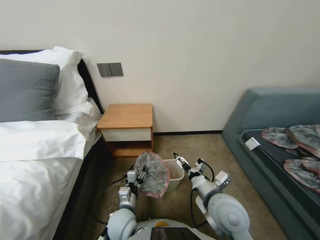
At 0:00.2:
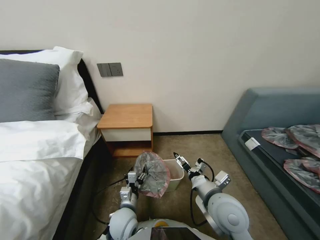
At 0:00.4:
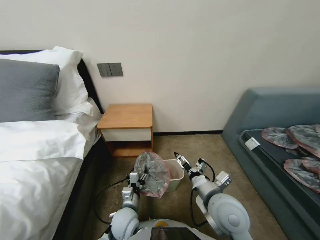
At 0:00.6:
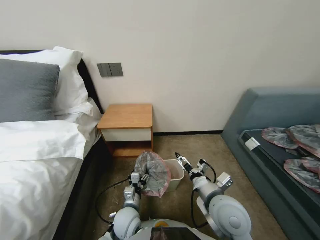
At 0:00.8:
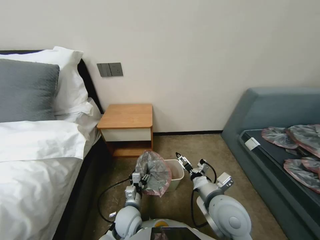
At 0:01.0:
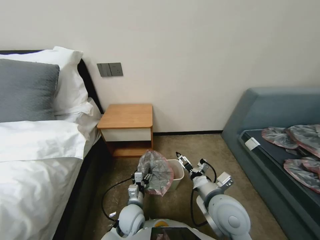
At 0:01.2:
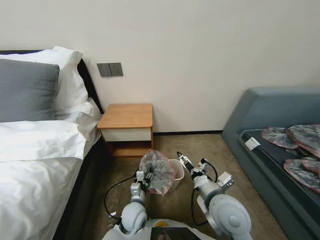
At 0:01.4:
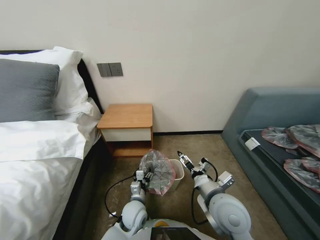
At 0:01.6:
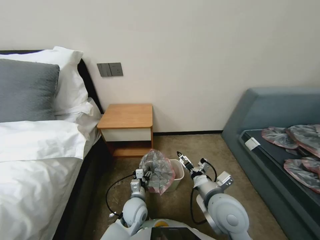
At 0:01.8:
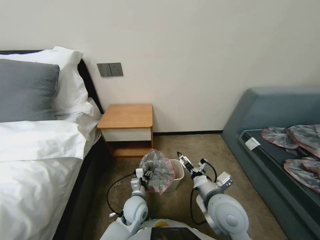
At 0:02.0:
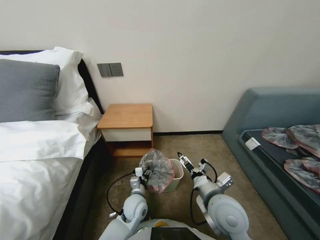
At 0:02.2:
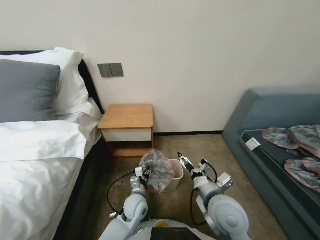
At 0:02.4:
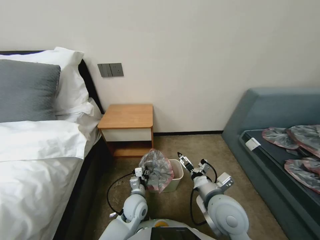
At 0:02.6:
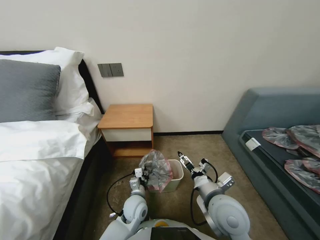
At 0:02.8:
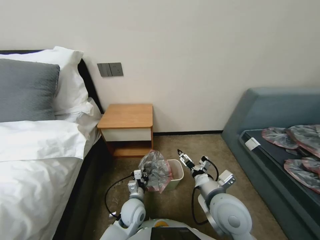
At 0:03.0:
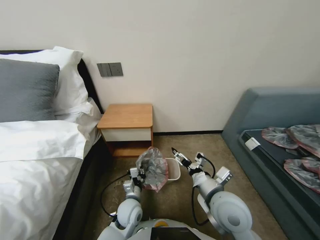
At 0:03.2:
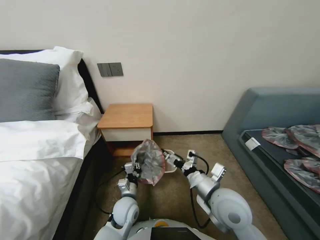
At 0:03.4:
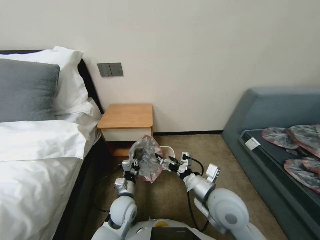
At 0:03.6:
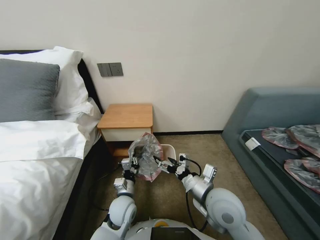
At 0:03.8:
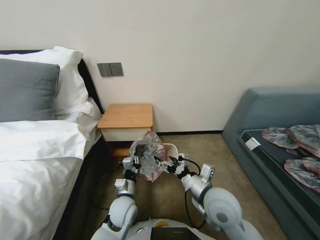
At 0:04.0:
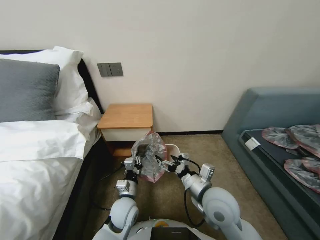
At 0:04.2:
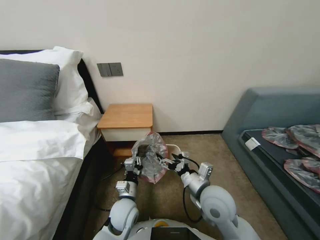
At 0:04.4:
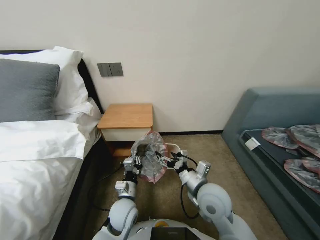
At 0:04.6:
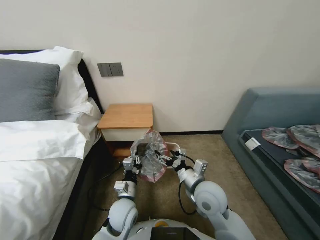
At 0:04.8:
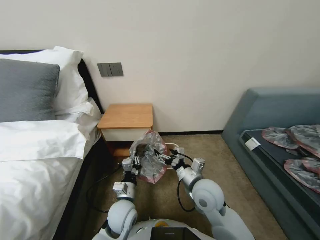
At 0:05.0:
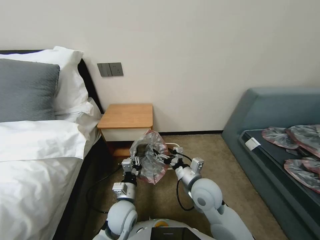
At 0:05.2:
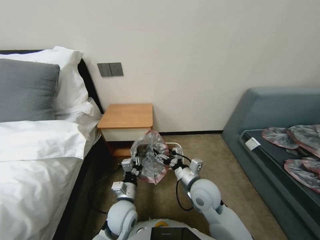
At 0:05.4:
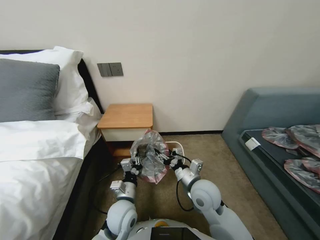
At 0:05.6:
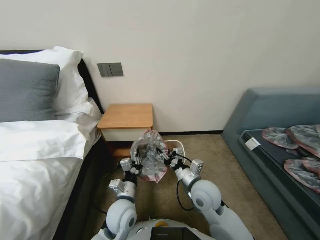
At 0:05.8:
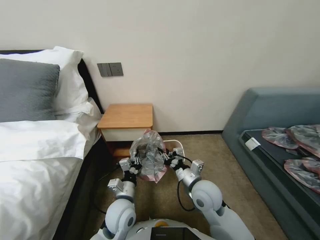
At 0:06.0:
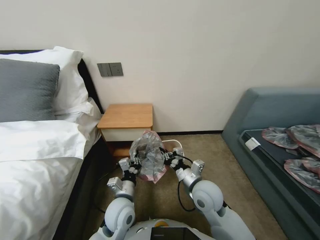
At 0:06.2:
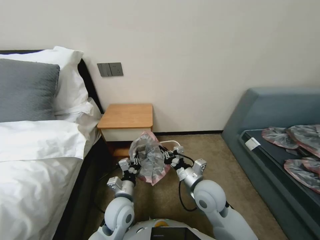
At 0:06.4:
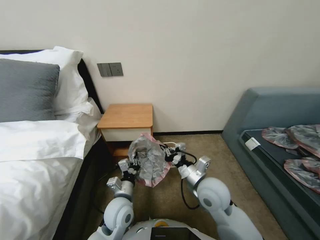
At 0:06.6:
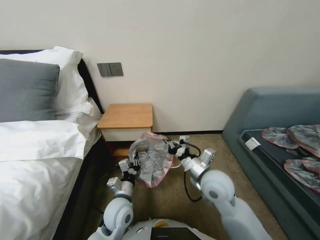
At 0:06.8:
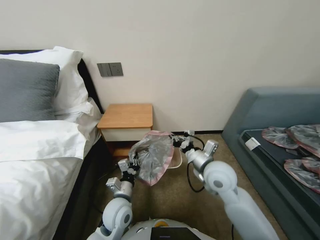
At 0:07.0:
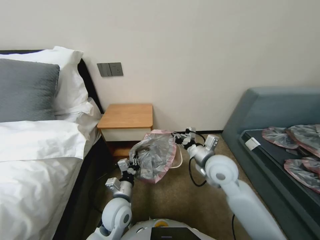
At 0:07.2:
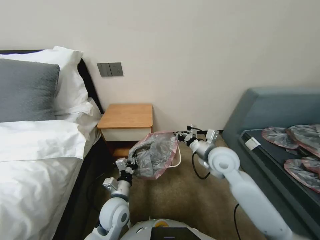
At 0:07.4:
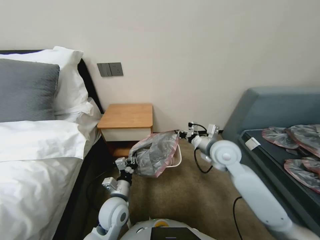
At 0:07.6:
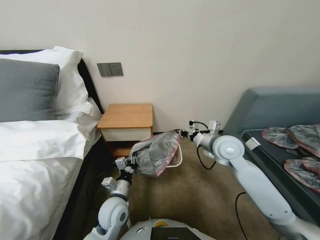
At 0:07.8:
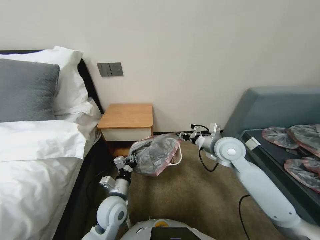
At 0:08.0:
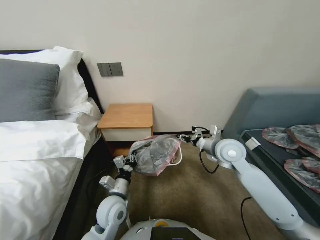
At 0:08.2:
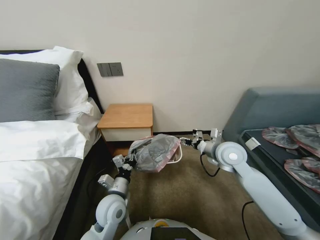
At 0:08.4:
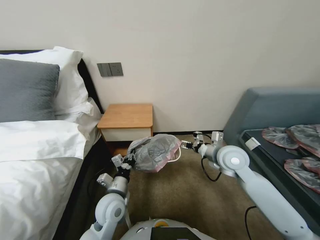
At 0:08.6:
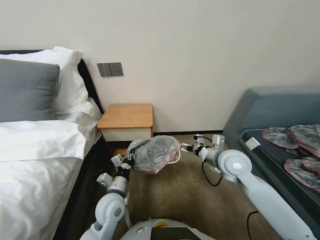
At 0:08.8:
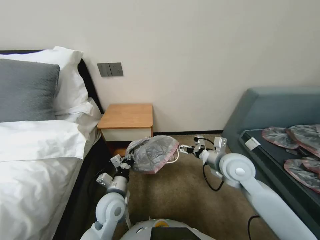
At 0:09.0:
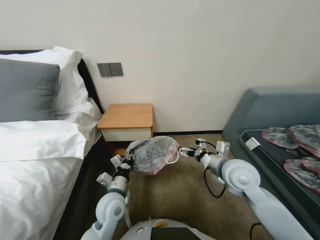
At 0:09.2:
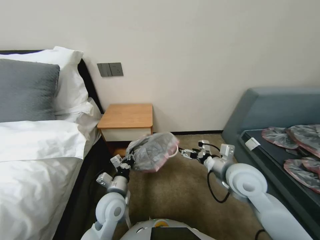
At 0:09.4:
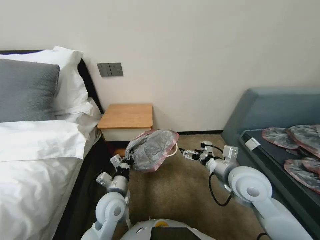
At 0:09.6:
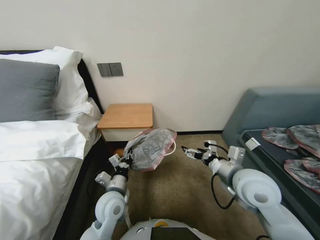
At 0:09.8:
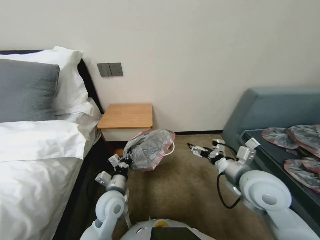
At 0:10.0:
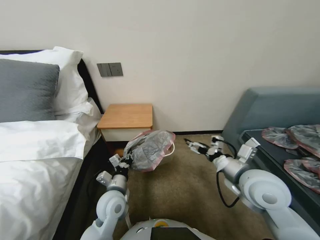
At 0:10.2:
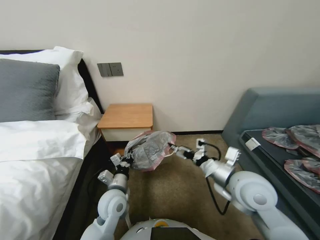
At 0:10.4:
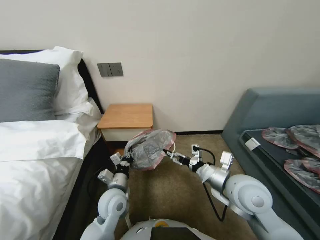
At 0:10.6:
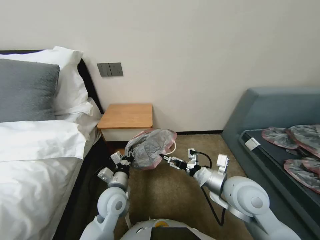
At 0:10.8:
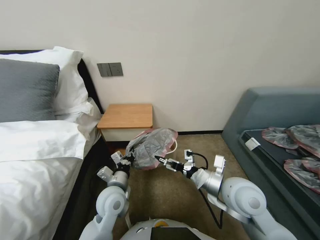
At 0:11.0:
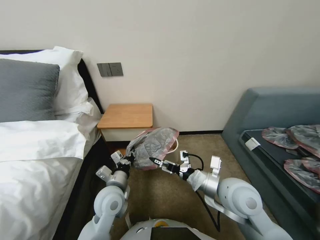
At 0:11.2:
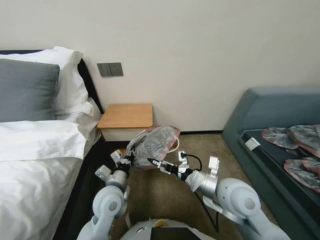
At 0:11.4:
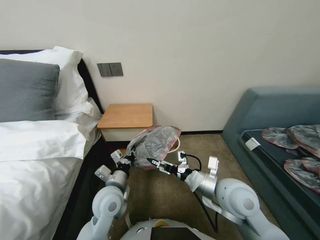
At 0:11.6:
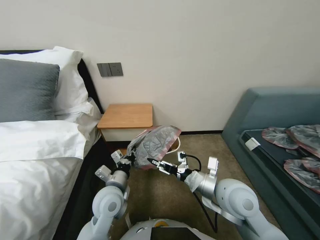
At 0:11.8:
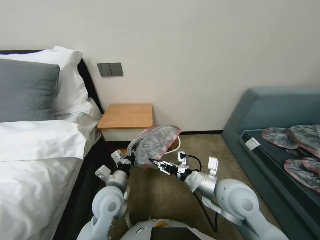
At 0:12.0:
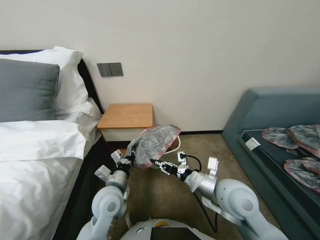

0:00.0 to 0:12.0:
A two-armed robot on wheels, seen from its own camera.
Task of the whole recording: Pick up the garbage bag from the table and place it over the trash can.
0:00.0 to 0:01.6: The left gripper changes place by approximately 5 cm.
0:01.6 to 0:03.0: The left gripper closes.
0:03.0 to 0:04.4: The left gripper goes roughly 5 cm upward.
0:04.4 to 0:06.0: The right gripper closes.
0:06.0 to 0:07.6: The right gripper heads forward, upward and to the right, covering approximately 20 cm.
0:07.6 to 0:09.0: The right gripper heads backward, covering roughly 5 cm, and opens.
0:09.0 to 0:10.4: The right gripper is displaced backward by some 5 cm.
0:10.4 to 0:12.0: The right gripper closes.

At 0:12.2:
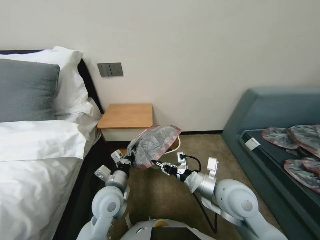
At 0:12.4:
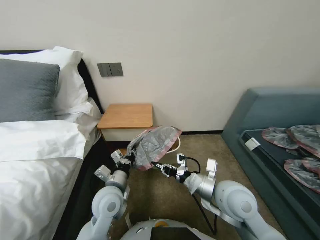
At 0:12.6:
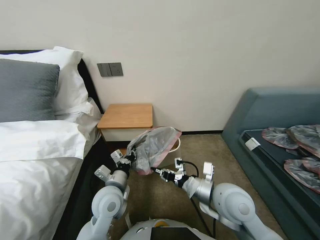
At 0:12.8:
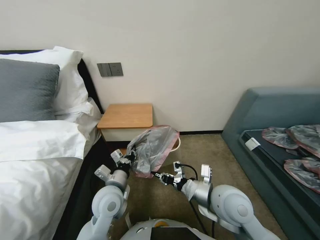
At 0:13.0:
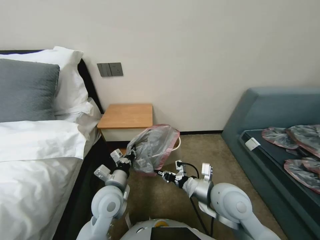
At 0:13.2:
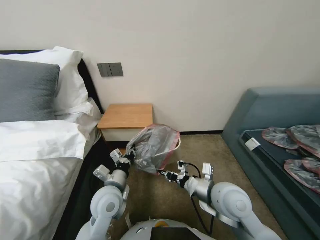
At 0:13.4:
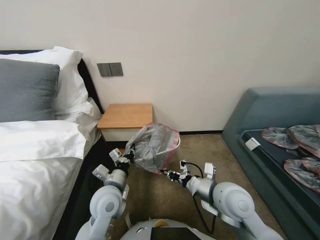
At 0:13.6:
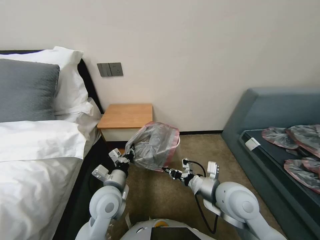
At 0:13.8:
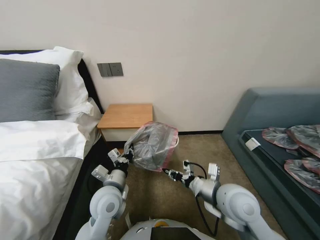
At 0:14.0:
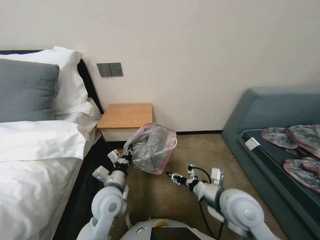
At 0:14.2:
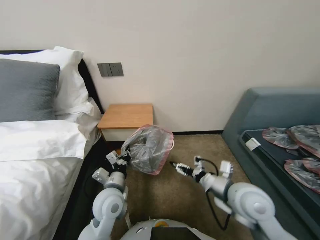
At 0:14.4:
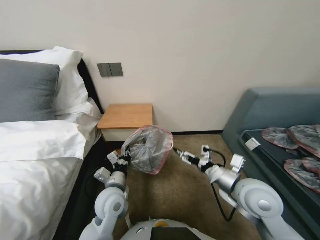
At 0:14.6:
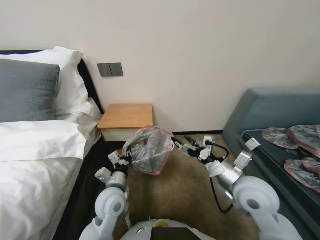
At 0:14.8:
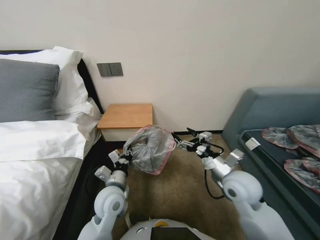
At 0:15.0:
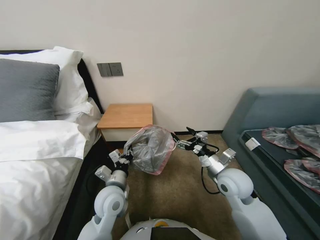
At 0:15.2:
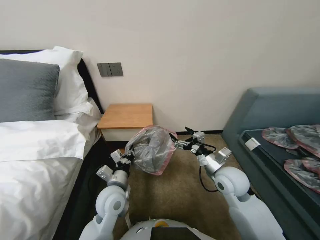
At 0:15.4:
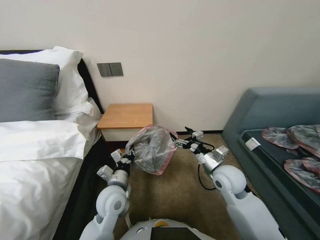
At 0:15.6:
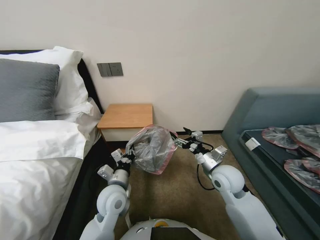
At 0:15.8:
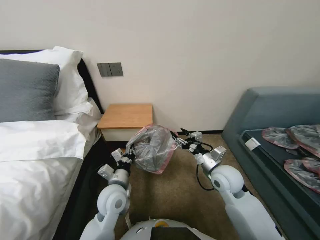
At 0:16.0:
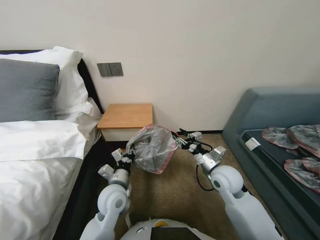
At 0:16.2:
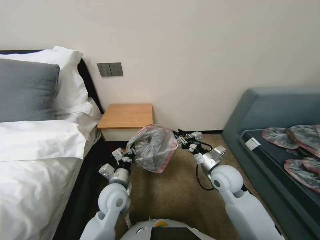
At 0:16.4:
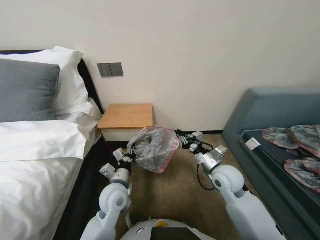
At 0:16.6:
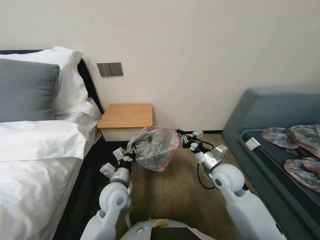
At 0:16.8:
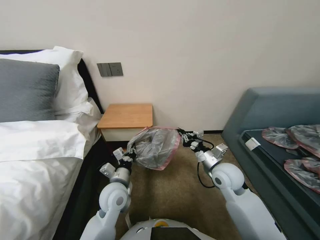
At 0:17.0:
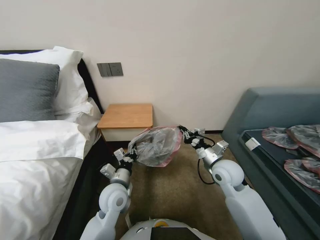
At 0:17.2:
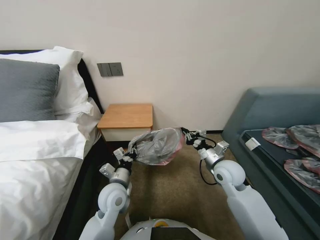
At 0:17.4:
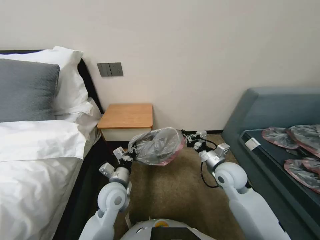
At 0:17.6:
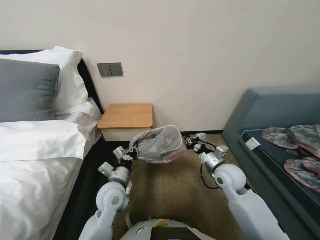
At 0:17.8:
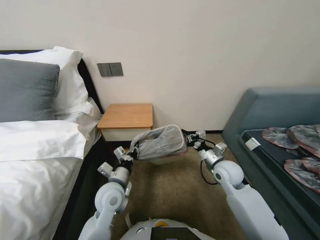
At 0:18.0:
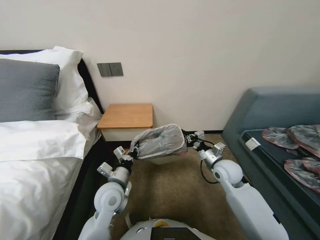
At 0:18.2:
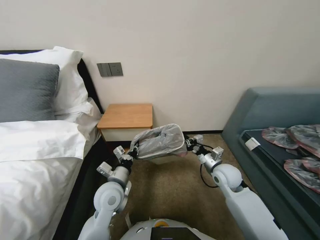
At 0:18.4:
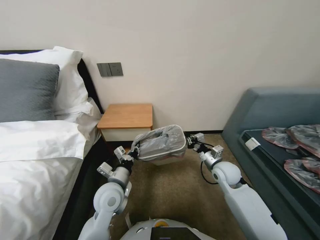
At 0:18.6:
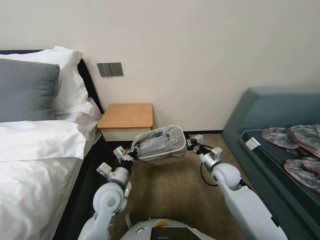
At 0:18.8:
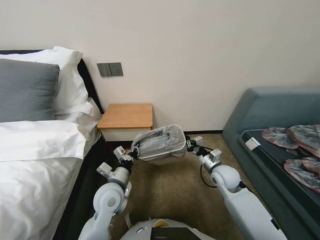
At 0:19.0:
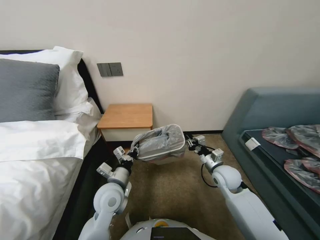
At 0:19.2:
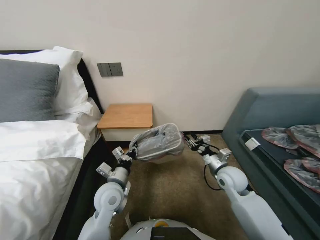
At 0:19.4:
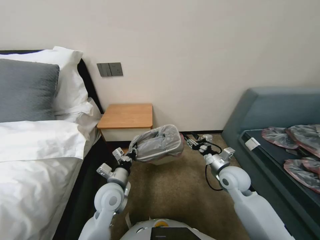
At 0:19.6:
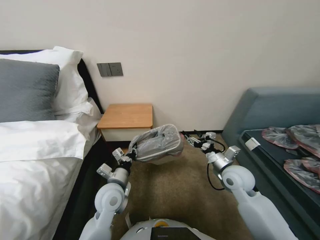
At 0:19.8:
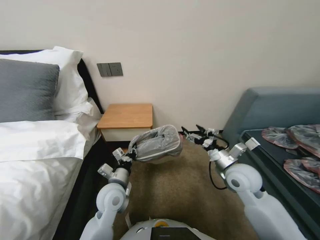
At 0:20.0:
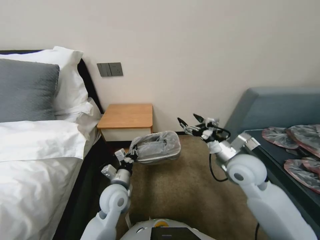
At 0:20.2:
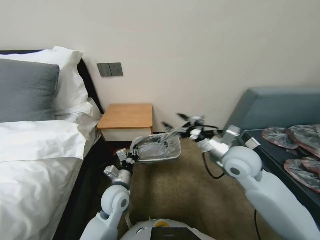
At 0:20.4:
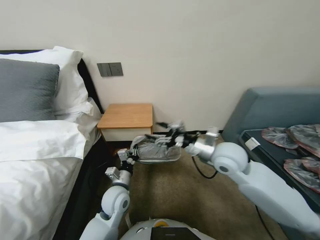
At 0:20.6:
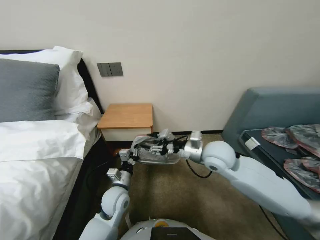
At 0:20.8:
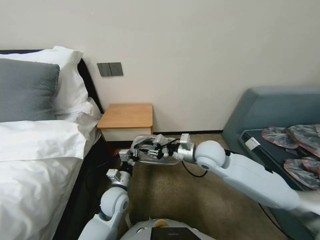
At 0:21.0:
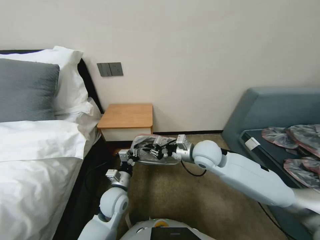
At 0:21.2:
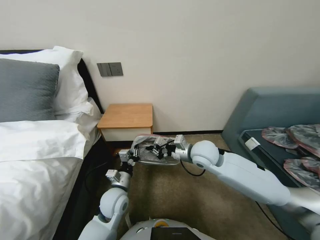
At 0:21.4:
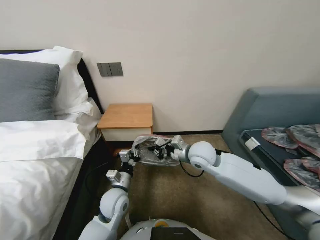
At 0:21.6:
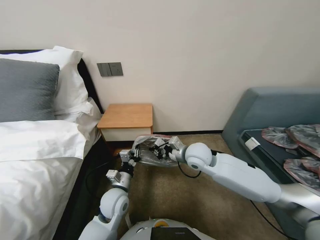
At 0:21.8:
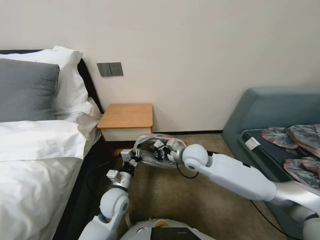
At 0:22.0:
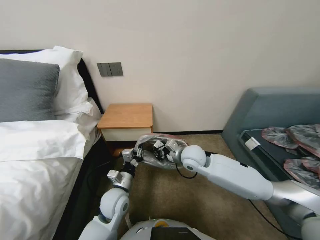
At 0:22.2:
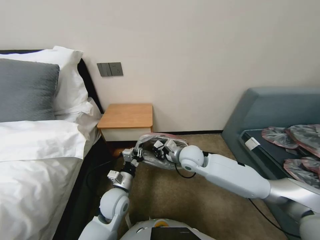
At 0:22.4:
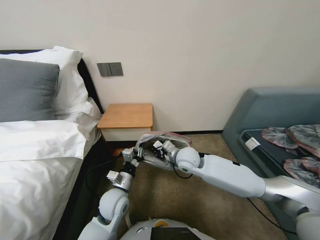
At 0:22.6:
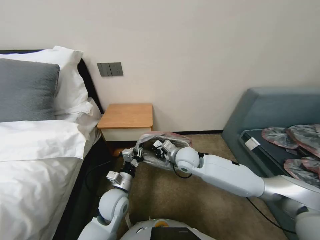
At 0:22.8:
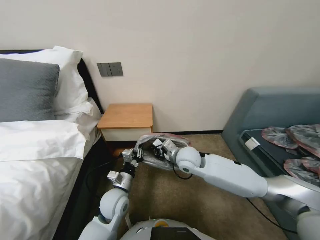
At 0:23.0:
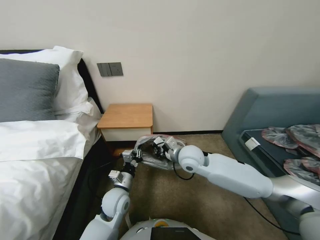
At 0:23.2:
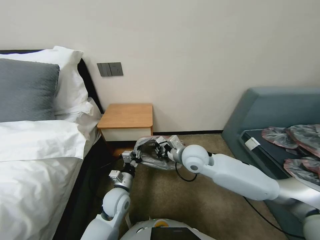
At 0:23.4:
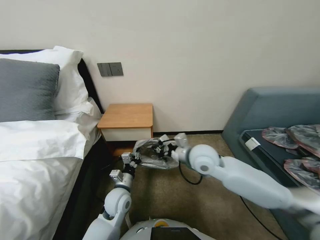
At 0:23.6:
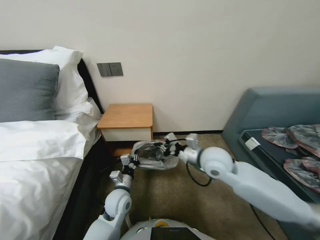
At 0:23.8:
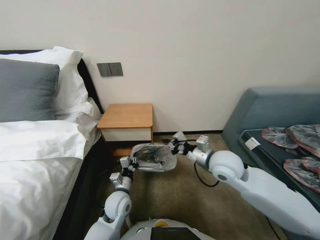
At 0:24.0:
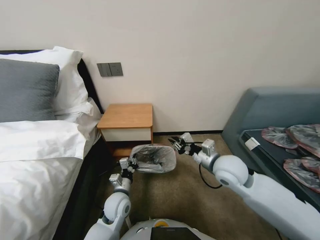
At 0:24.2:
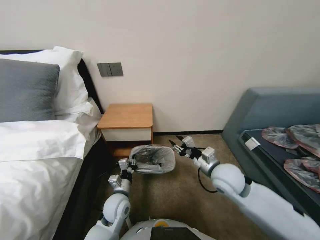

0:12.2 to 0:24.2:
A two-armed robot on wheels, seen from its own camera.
Task of the whole recording: Pick up the garbage bag from the table and place it over the trash can.
0:12.2 to 0:13.8: The grippers make only small movements.
0:13.8 to 0:15.2: The right gripper is displaced forward by some 5 cm, and opens up.
0:15.2 to 0:16.6: The right gripper closes.
0:16.6 to 0:18.2: The right gripper shifts by approximately 5 cm.
0:18.2 to 0:19.8: The right gripper shifts by about 5 cm, and opens its fingers.
0:19.8 to 0:21.2: The right gripper travels to the left, forward and upward by approximately 15 cm, and closes up.
0:21.2 to 0:22.6: The right gripper heads downward and to the left, covering some 10 cm.
0:22.6 to 0:24.2: The right gripper heads to the right and backward, covering roughly 15 cm, while the left gripper heads downward, covering approximately 5 cm.
